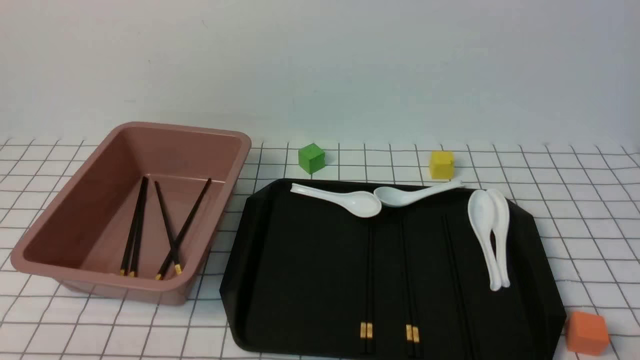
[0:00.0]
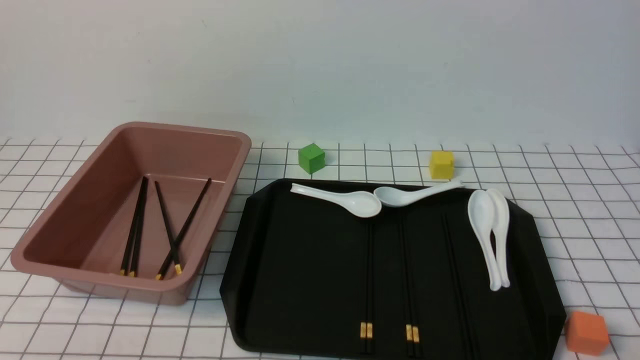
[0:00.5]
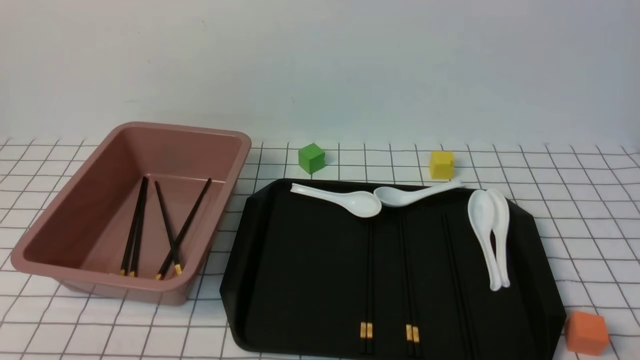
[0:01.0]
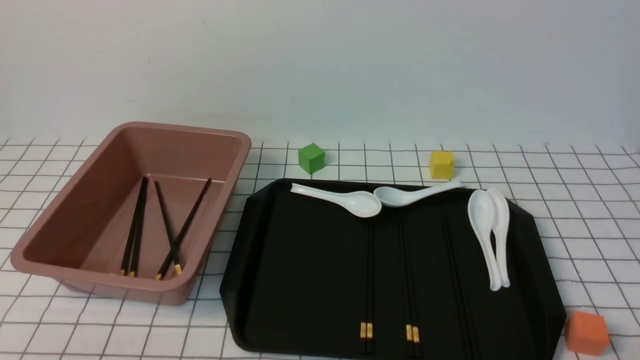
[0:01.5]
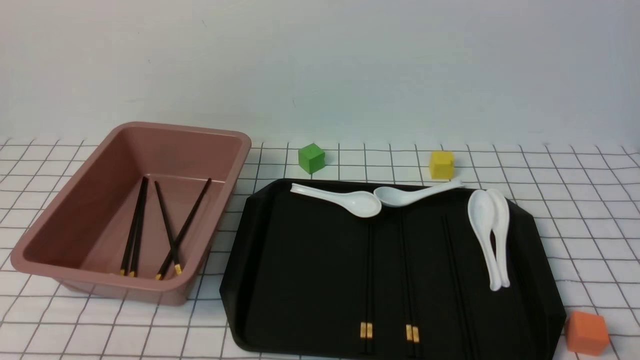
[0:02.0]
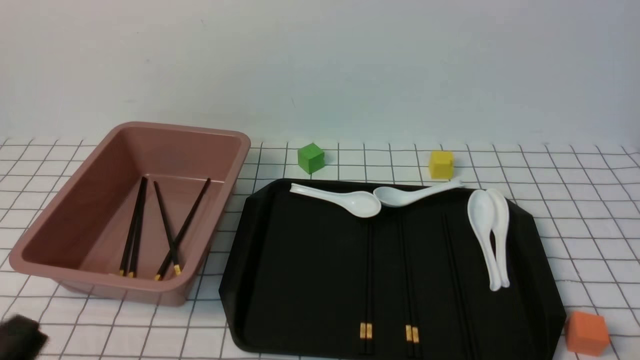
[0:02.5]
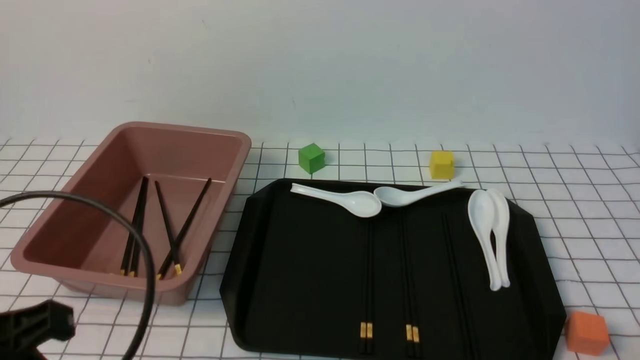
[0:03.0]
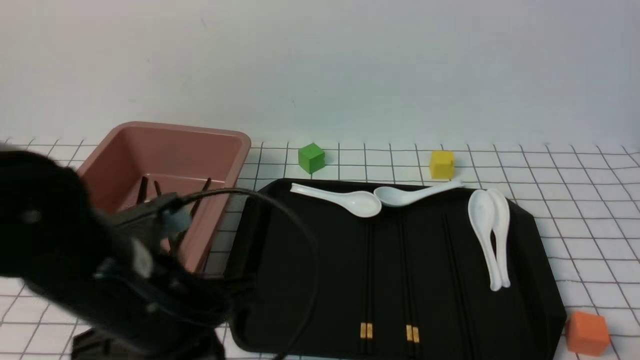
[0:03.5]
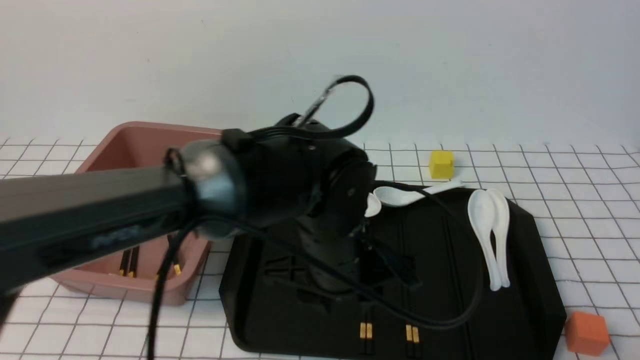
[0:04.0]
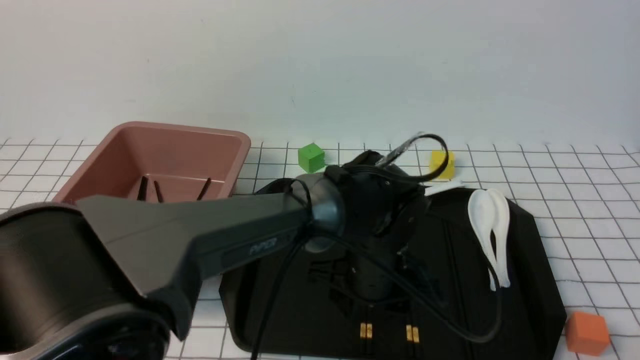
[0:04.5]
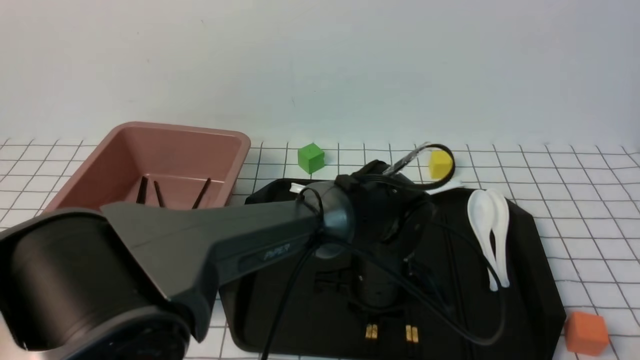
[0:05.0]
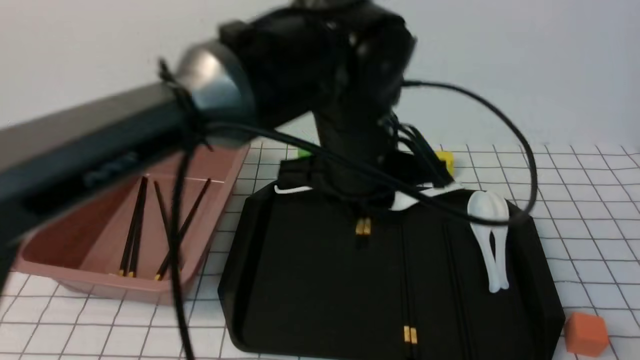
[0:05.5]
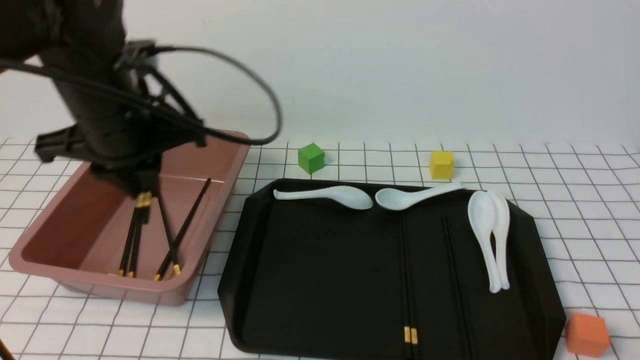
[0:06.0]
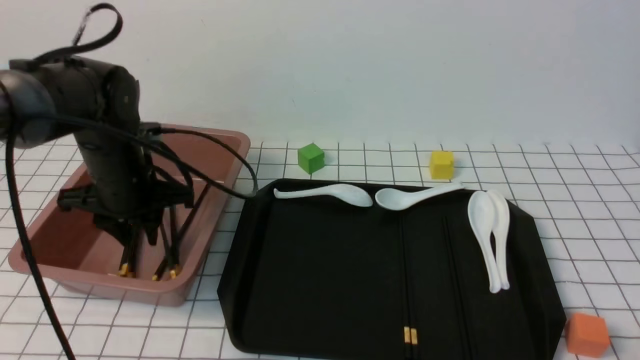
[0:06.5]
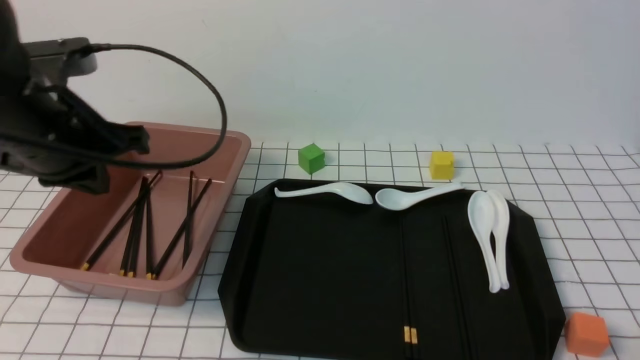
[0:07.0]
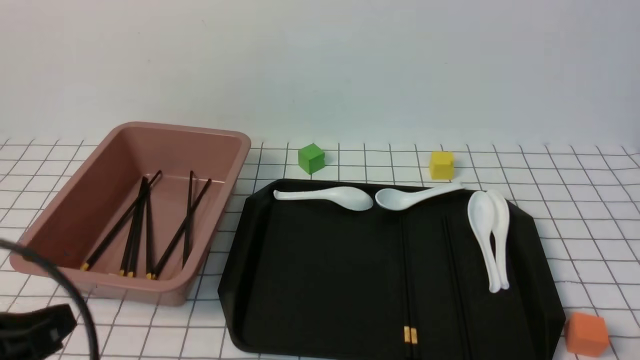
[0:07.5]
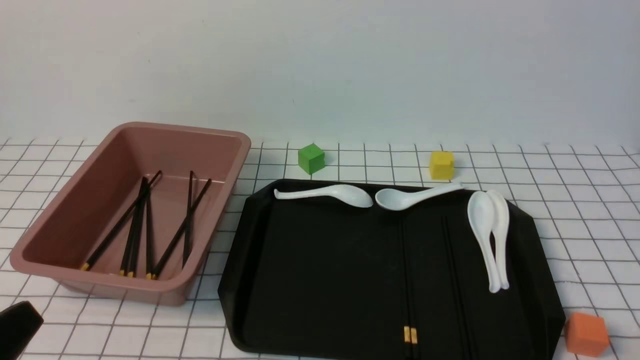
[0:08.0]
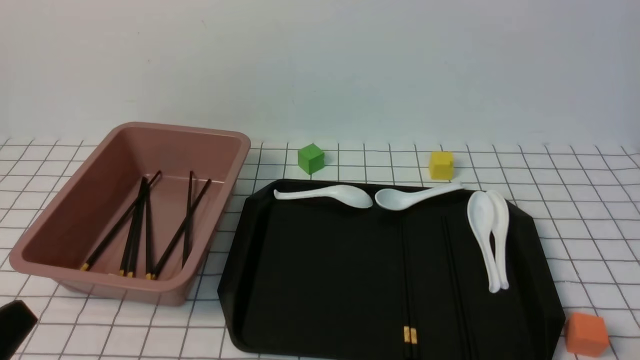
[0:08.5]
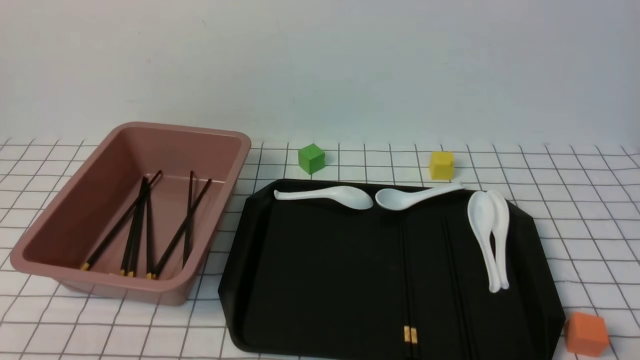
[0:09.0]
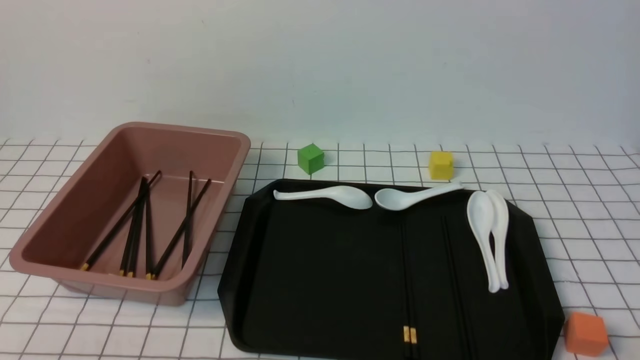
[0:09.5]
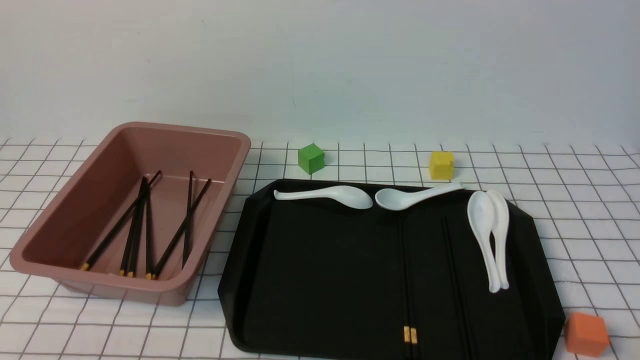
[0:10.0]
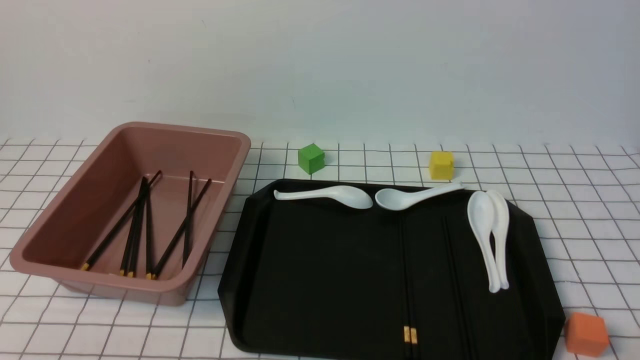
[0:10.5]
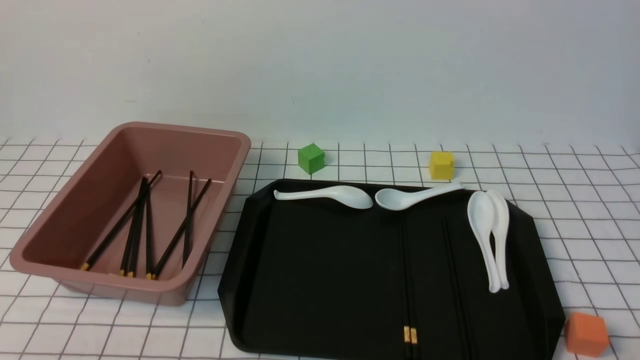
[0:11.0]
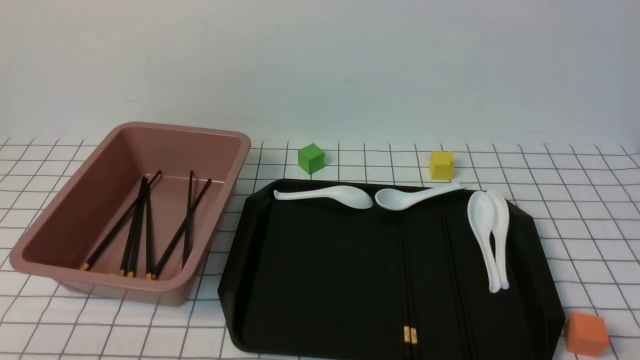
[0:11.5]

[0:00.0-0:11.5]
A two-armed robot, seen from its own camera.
Step, 0:00.0 to 0:05.0: use the left arm to grab a pair of chopsticks.
Step, 0:05.5 to 0:06.5: use the left arm to put the chopsticks into the lunch box.
0:02.0 to 0:04.0: The left gripper heads to the right and forward, covering some 30 cm.
0:04.0 to 0:06.0: The left gripper heads to the left, upward and forward, covering approximately 20 cm, and opens and closes again.
0:06.0 to 0:07.5: The left gripper goes roughly 20 cm backward and to the left.
0:07.5 to 0:09.5: The left gripper moves downward and backward, some 15 cm.
0:09.5 to 0:11.5: Both grippers stay put.
